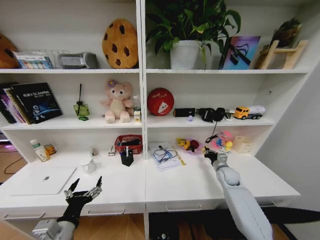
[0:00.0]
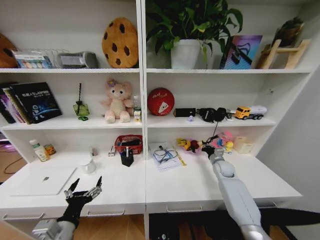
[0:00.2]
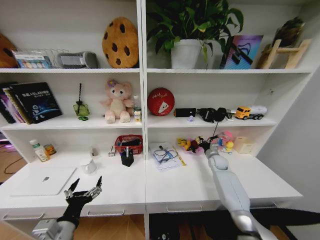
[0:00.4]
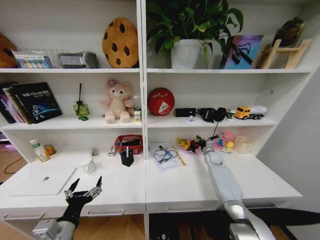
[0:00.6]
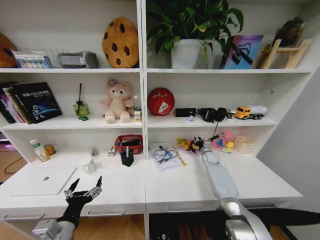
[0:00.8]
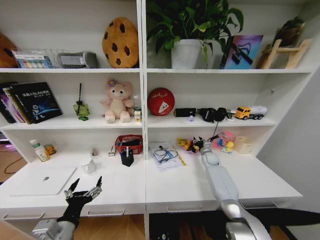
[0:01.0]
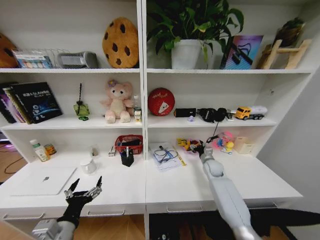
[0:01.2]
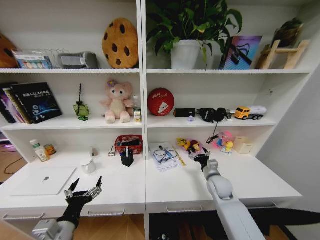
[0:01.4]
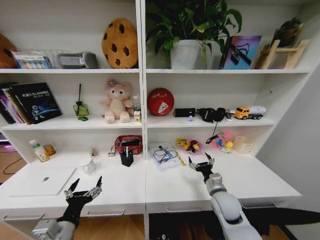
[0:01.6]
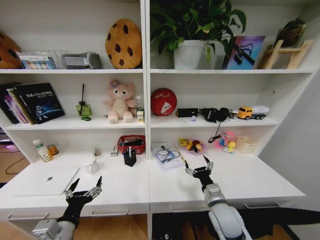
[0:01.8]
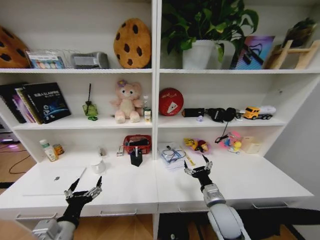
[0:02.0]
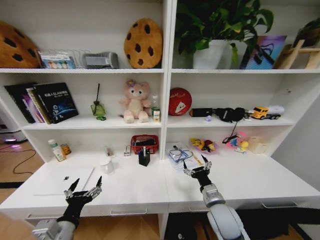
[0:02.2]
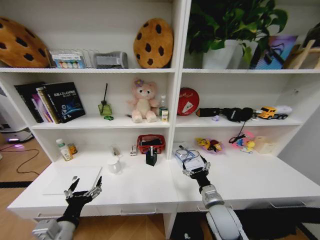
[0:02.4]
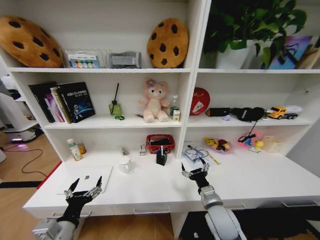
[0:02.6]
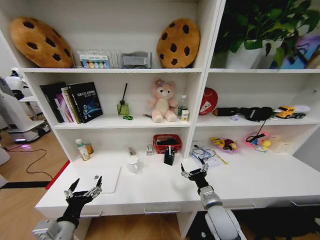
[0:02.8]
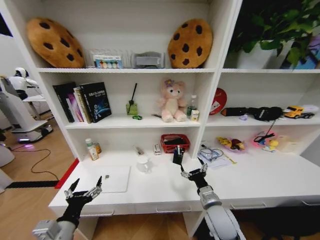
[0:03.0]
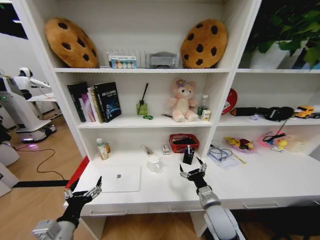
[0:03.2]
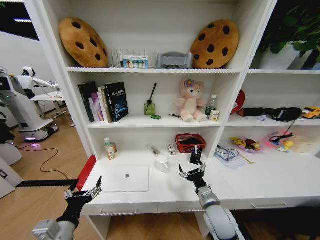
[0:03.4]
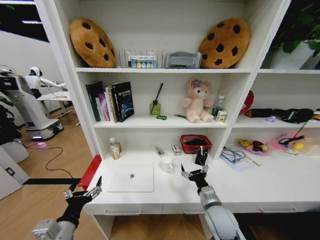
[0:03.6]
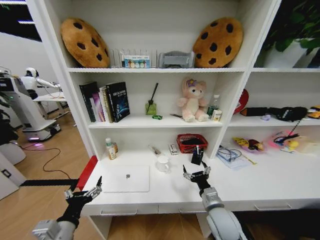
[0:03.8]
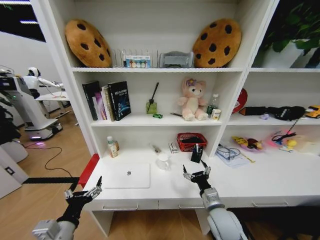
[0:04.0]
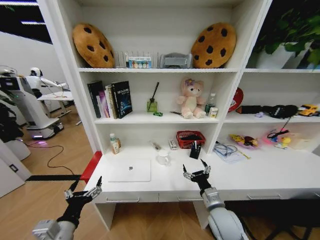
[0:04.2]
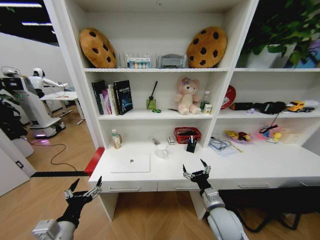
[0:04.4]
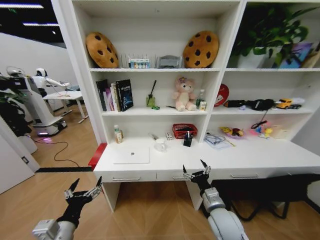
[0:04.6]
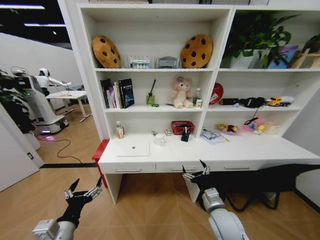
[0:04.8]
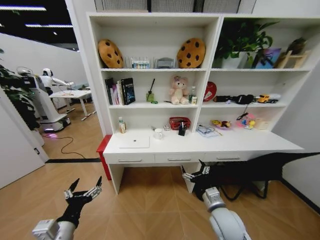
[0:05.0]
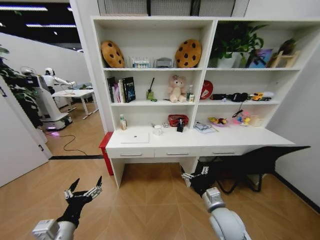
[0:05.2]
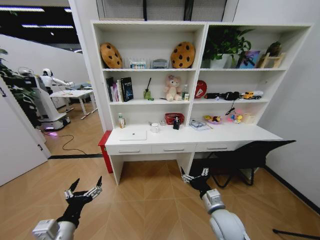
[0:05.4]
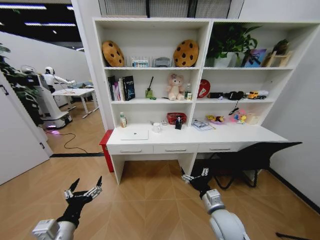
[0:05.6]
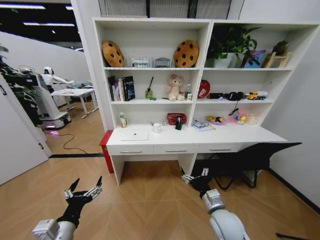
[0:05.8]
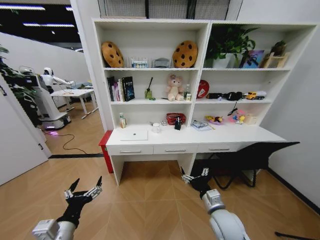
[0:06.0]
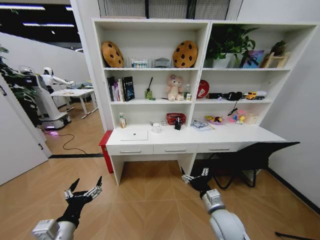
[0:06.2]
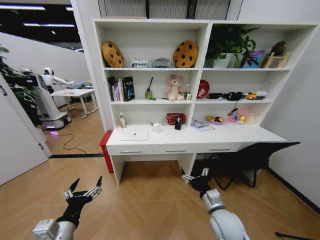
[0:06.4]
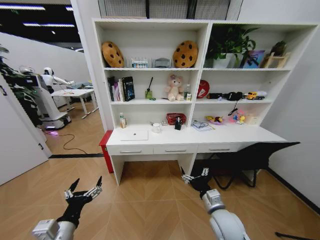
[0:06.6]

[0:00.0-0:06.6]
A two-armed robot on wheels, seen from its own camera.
Task of the whole recording: Organize the objects on the table.
0.0 to 1.6 s: The right gripper moves backward and to the left, about 15 cm, and opens.
1.6 to 3.2 s: The right gripper shifts some 10 cm backward and to the left.

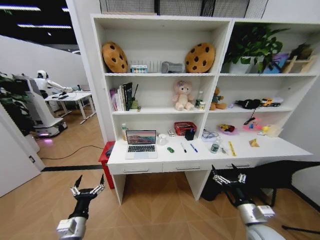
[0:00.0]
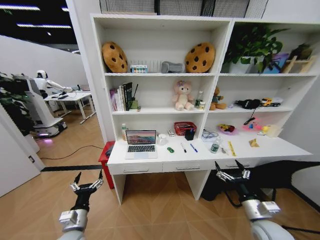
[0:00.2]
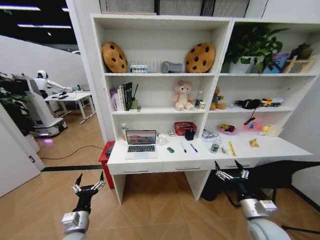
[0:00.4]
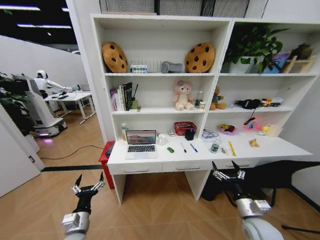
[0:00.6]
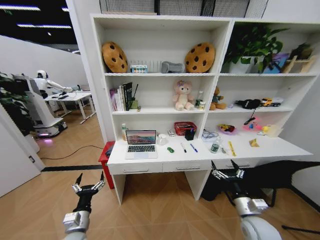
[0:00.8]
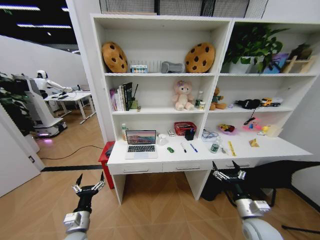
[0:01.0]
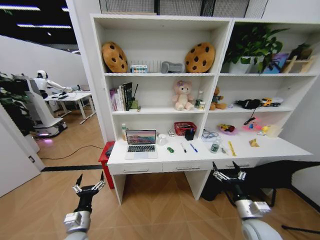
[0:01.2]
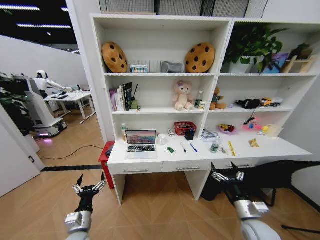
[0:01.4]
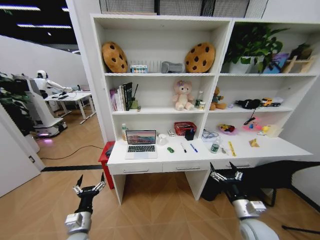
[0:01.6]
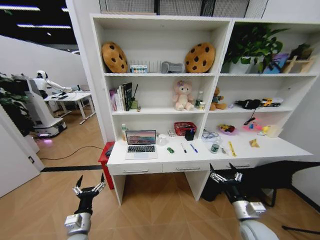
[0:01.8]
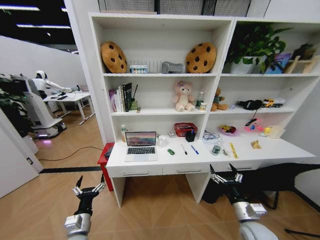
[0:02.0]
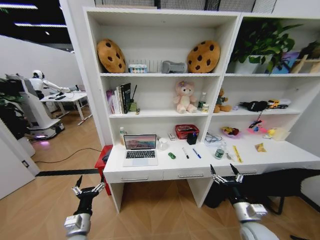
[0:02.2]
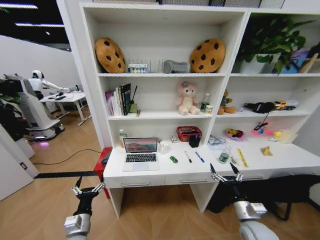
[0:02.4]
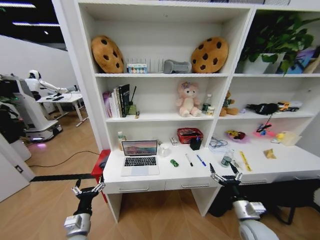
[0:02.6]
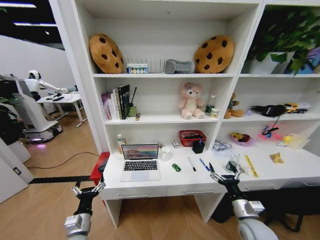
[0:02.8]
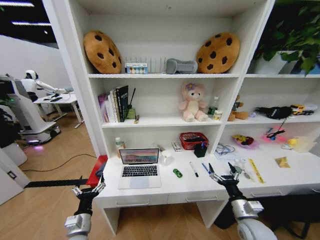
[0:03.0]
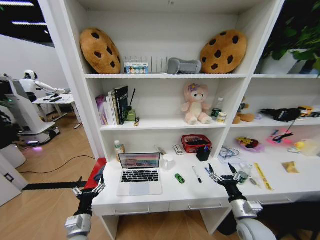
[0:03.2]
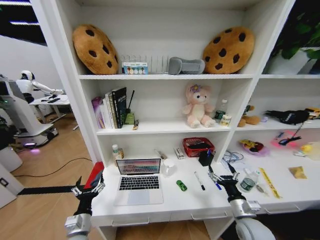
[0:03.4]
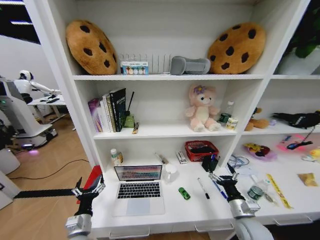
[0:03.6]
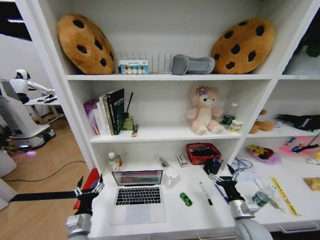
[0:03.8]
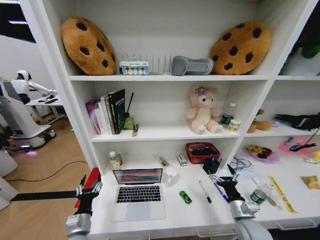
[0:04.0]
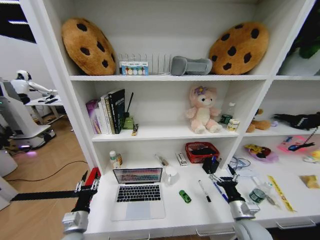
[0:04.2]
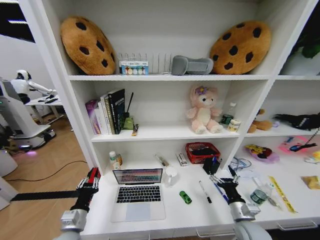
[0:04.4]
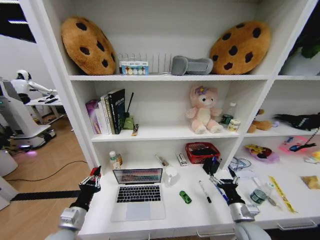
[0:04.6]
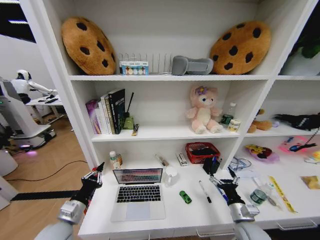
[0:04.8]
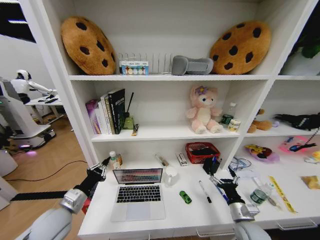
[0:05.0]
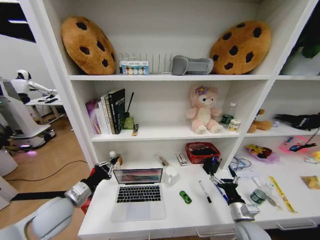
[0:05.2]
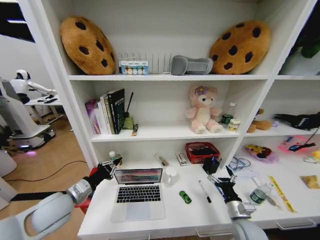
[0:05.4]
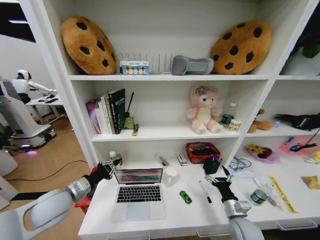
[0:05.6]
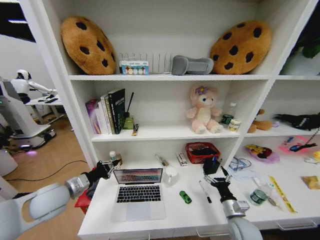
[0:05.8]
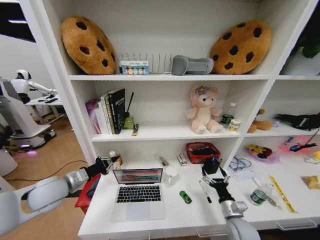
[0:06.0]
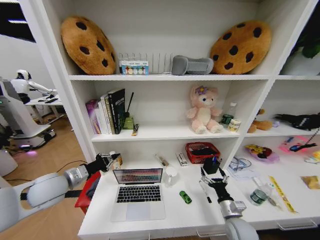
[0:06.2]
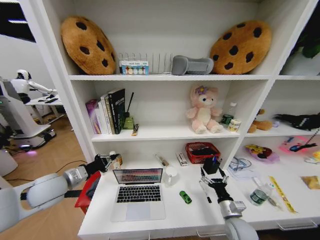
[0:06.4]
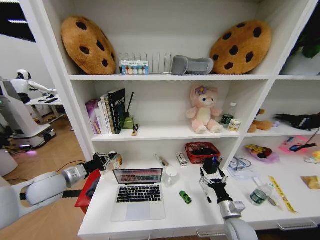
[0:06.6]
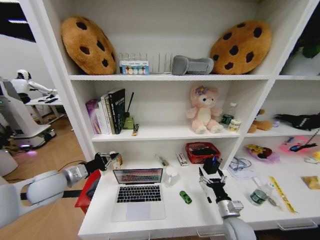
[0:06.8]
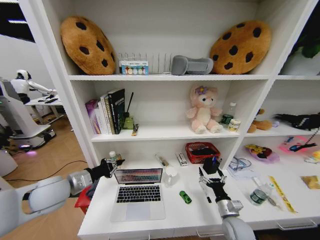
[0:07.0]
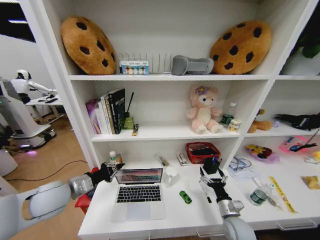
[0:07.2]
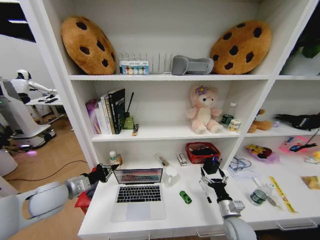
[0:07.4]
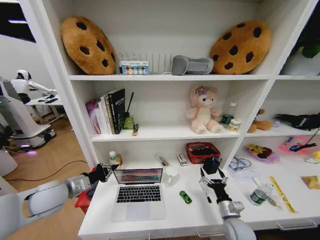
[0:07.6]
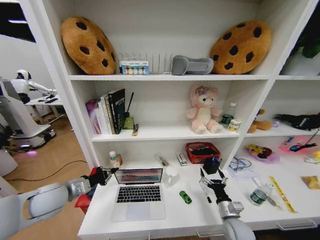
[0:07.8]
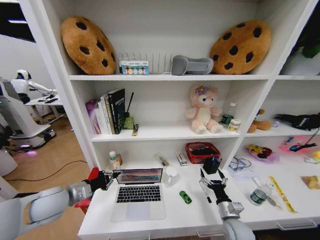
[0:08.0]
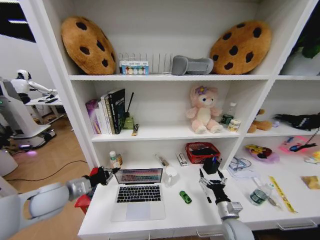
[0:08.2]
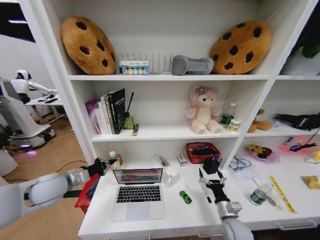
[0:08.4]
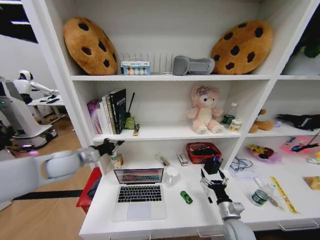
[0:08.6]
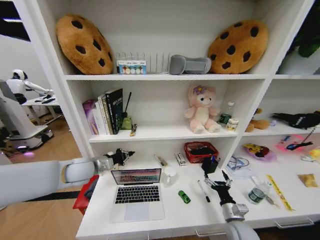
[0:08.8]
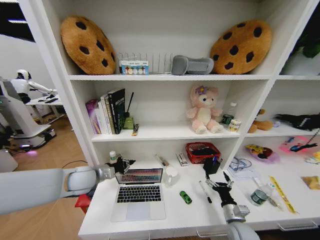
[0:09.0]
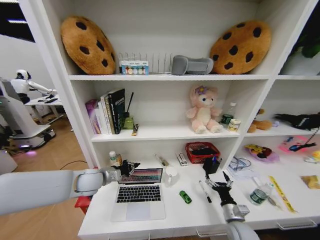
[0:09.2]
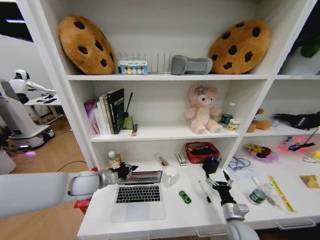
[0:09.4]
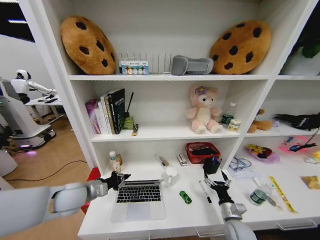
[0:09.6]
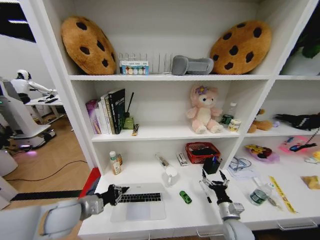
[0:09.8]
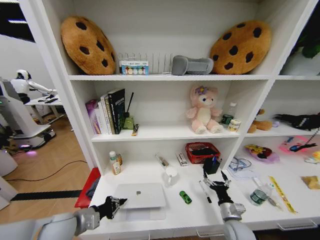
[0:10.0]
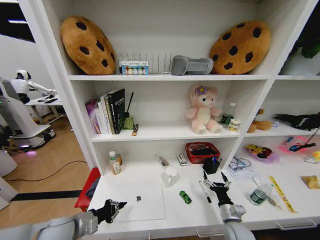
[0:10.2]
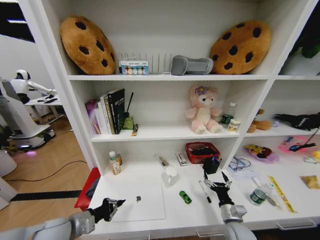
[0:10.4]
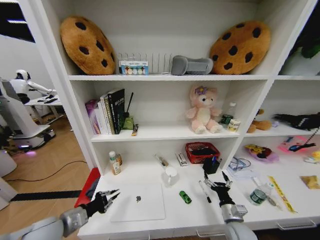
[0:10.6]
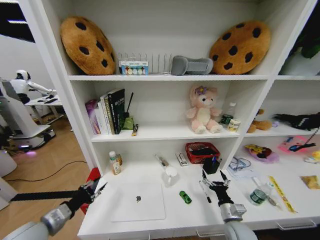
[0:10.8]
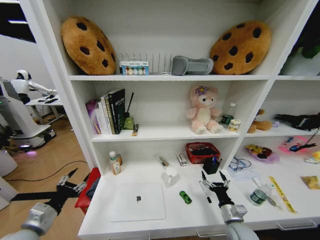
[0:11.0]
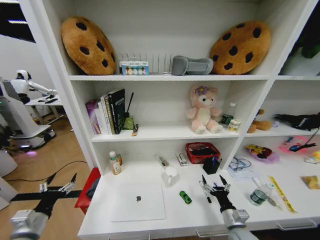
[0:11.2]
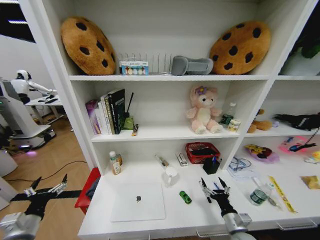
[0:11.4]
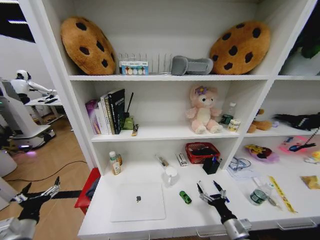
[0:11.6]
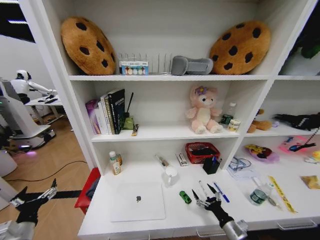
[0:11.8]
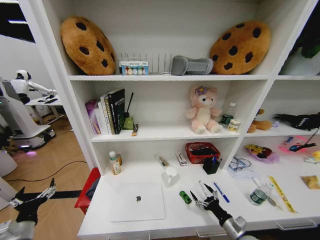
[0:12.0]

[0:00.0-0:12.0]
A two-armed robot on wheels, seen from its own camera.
Task of the whole recording: Organize the objects on the table.
3.0 to 4.4 s: The left gripper closes its fingers.
4.4 to 6.0 s: The left gripper is displaced upward and forward by some 20 cm.
6.0 to 7.6 s: The grippers move only a little.
7.6 to 9.0 s: The left gripper heads to the right and forward, covering some 10 cm.
9.0 to 10.4 s: The left gripper is displaced backward and downward by about 15 cm.
10.4 to 12.0 s: The right gripper moves about 5 cm, while the left gripper shifts some 10 cm to the left and backward, and opens up.

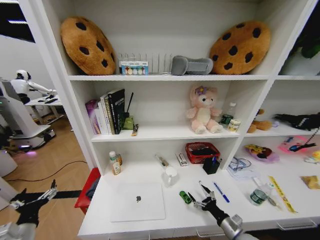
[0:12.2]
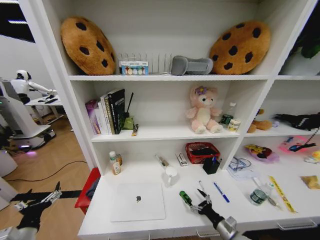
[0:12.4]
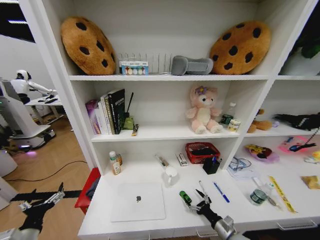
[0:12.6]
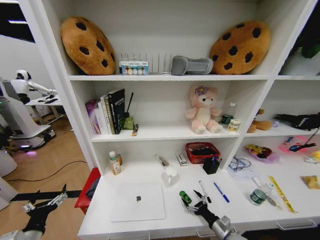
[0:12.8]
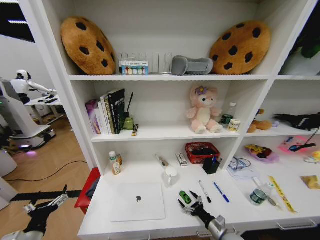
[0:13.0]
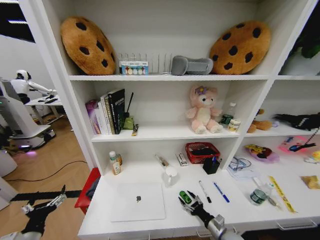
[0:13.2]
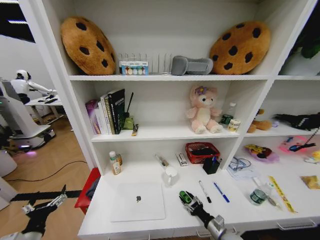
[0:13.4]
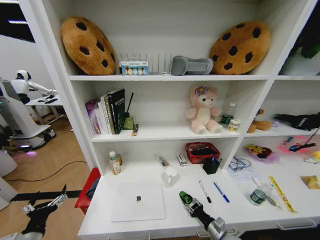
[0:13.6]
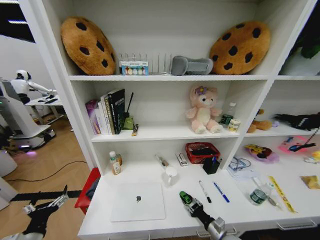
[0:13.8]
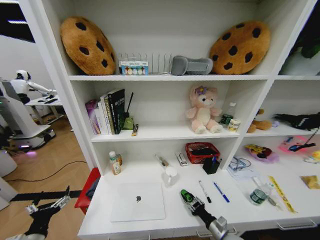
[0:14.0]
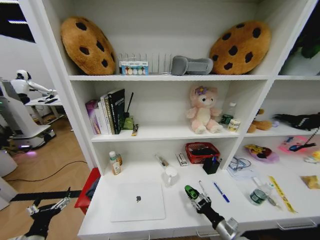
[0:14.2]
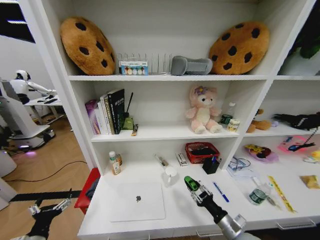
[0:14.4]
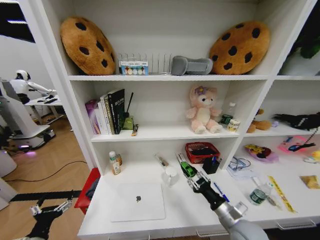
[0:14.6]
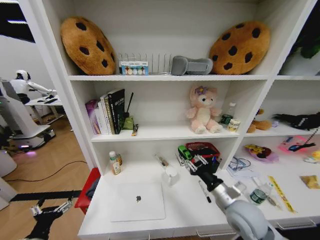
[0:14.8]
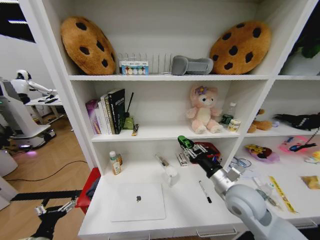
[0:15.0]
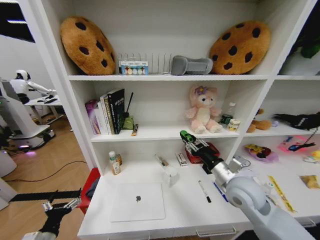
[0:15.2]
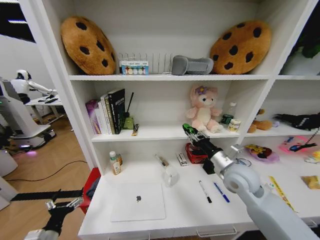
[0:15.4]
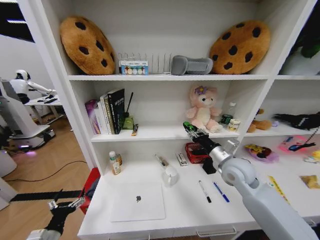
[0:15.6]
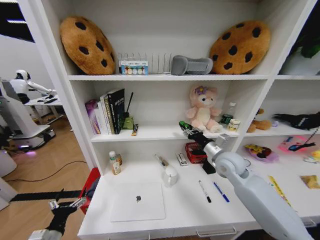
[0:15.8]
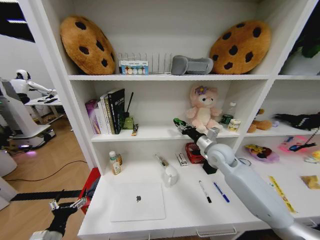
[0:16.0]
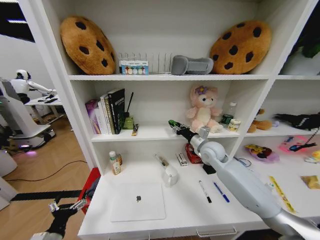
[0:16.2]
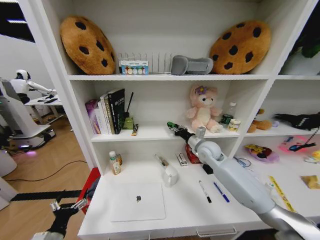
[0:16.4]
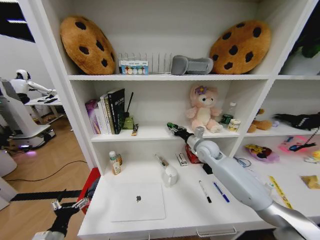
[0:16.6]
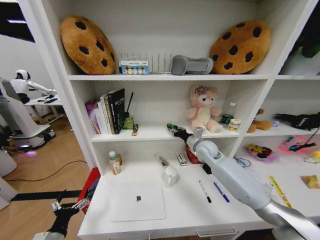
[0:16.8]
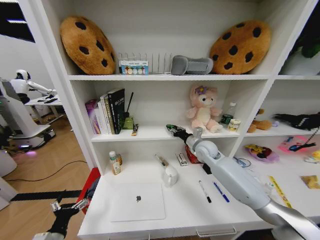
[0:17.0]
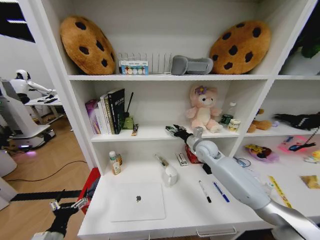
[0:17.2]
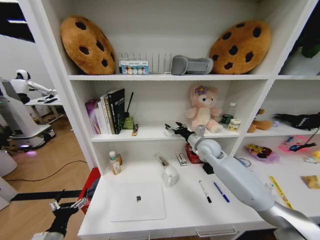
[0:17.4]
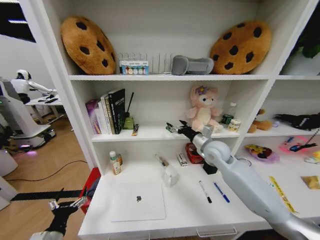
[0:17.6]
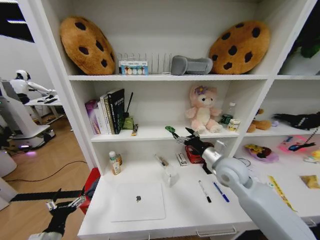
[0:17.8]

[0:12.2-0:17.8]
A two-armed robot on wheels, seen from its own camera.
Task of the whole recording: Organize the objects on the table.
12.2 to 13.6 s: The right gripper goes roughly 5 cm downward, and closes up.
13.6 to 15.0 s: The right gripper travels upward by approximately 30 cm.
15.0 to 16.4 s: The right gripper is displaced forward by approximately 20 cm.
16.4 to 17.8 s: The right gripper travels backward by roughly 10 cm, and opens.
